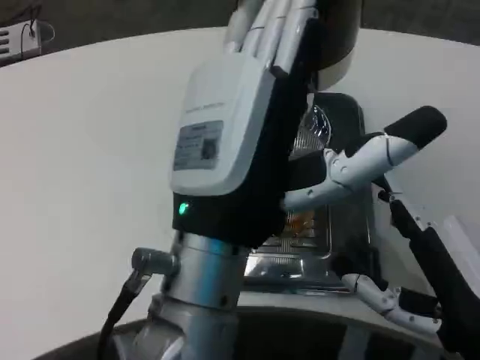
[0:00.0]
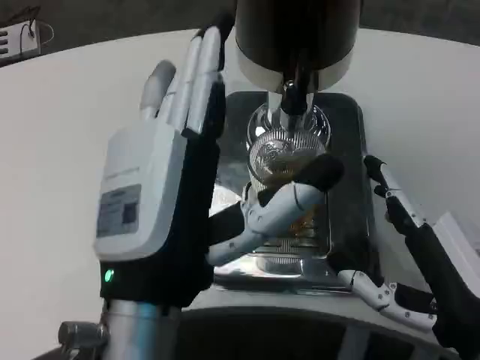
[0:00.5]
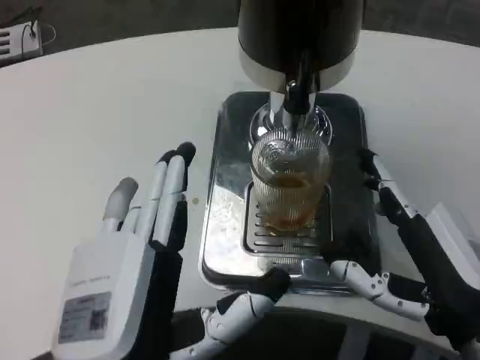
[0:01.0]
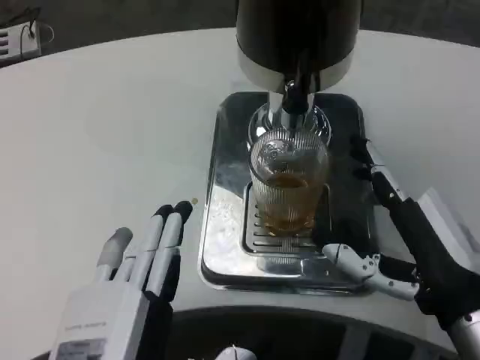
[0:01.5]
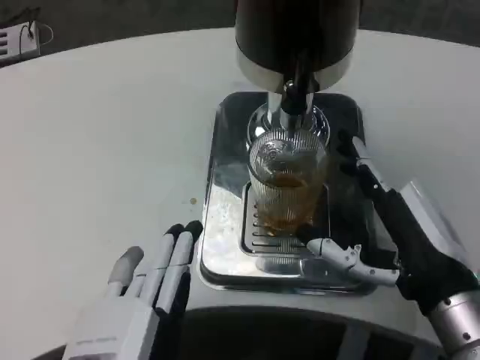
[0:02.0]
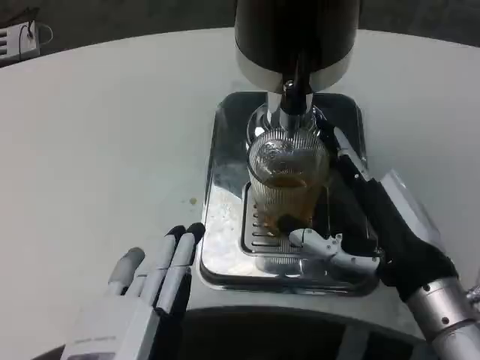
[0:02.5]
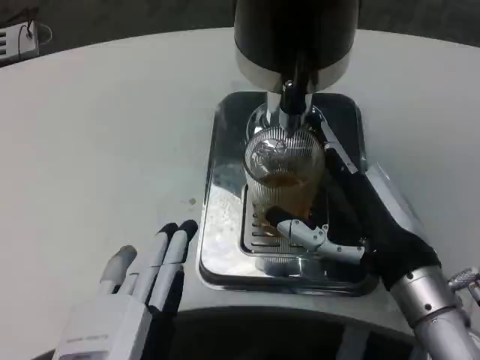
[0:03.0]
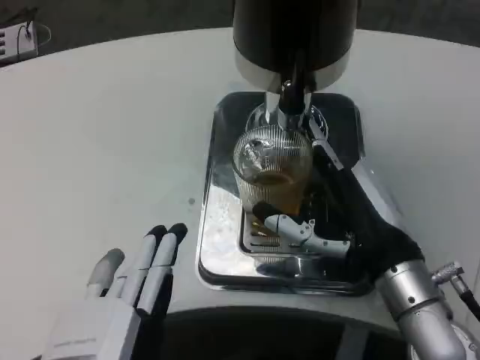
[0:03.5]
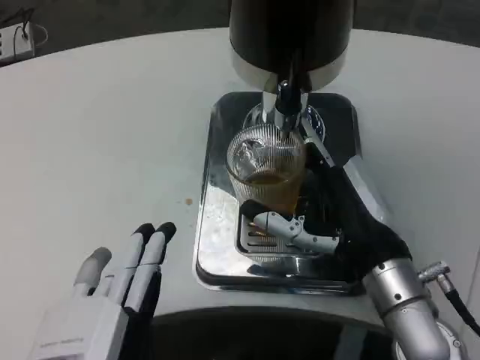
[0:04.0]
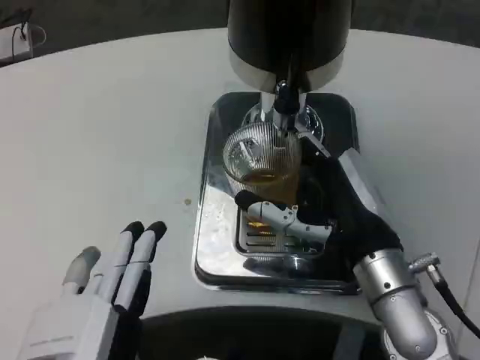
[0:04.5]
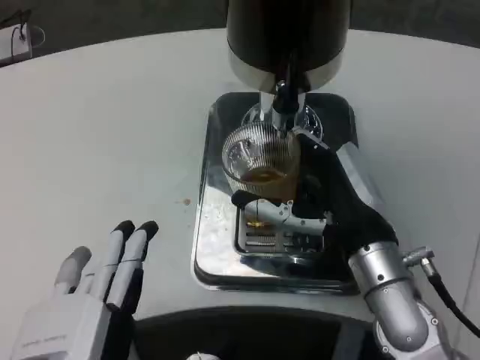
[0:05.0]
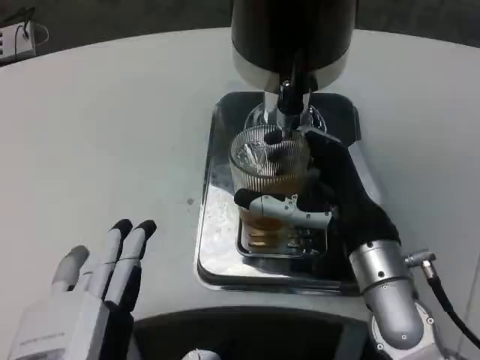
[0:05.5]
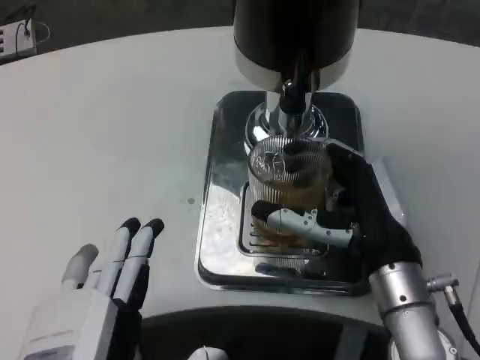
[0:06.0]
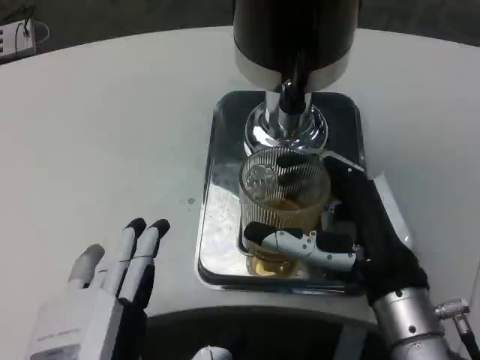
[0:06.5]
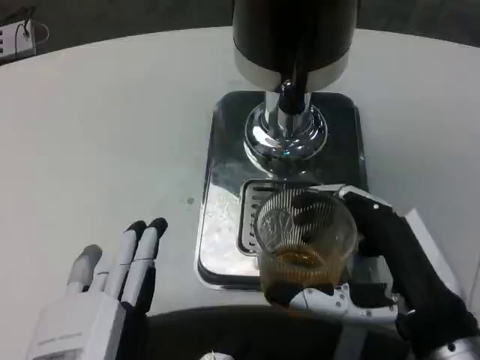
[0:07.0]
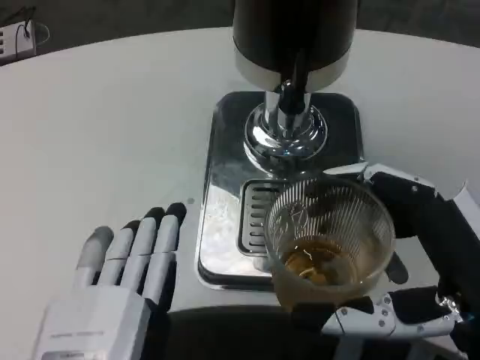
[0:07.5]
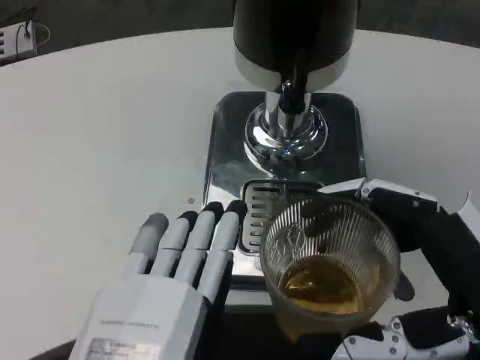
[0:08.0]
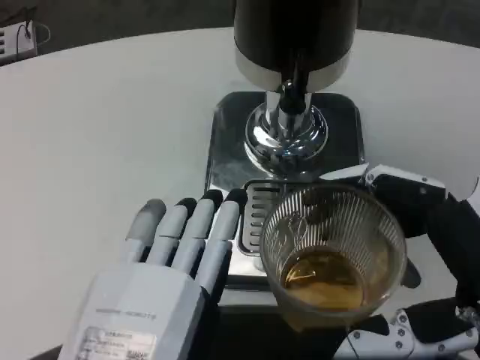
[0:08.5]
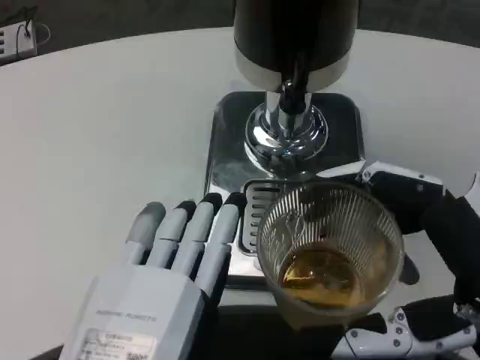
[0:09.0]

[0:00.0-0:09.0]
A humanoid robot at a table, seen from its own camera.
Task of the whole recording: Grasp the cup under the faucet to collect the drink, then remove the cup.
0:00.0 to 0:02.0: The left hand moves downward, backward and to the left, approximately 15 cm. The right hand travels forward by roughly 5 cm.
0:02.0 to 0:04.5: The right hand travels to the left by approximately 5 cm.
0:04.5 to 0:07.0: The right hand travels backward by some 10 cm.
0:07.0 to 0:09.0: The right hand is displaced upward and backward by approximately 5 cm.

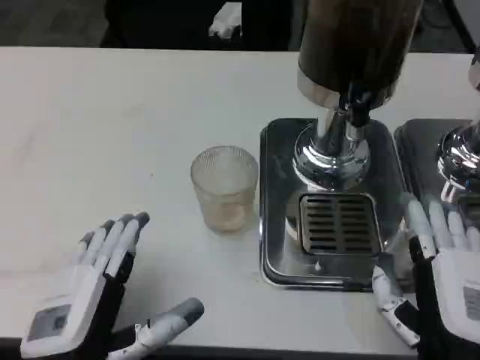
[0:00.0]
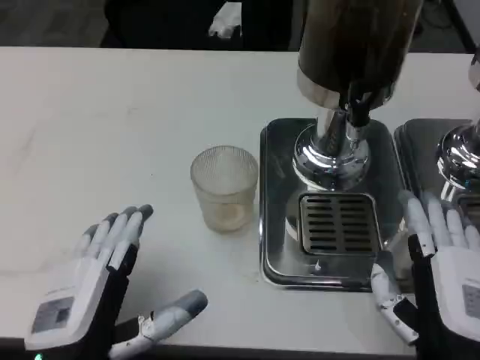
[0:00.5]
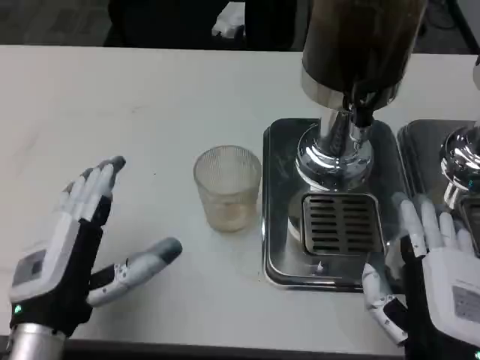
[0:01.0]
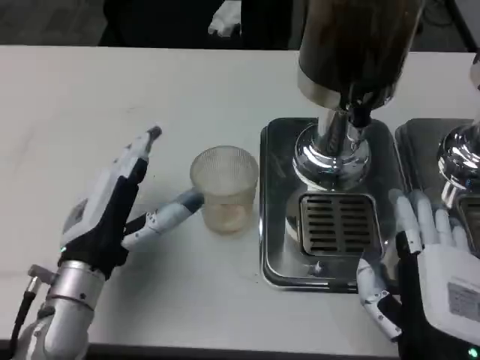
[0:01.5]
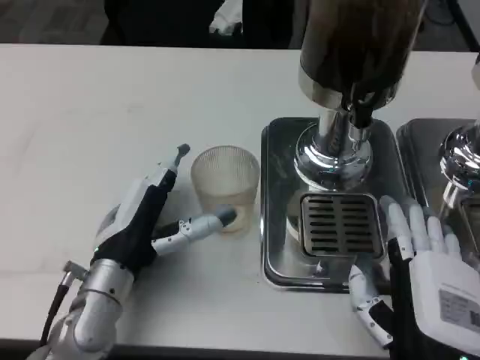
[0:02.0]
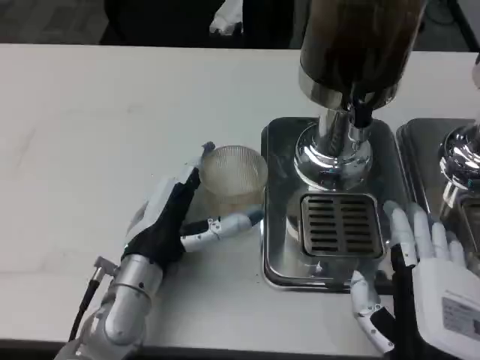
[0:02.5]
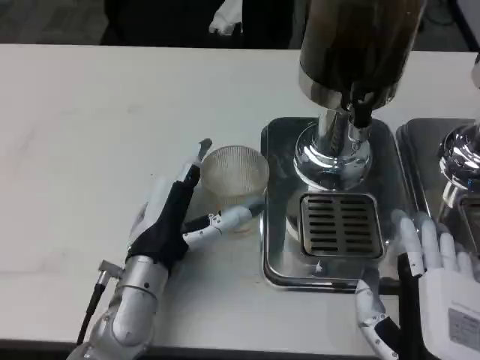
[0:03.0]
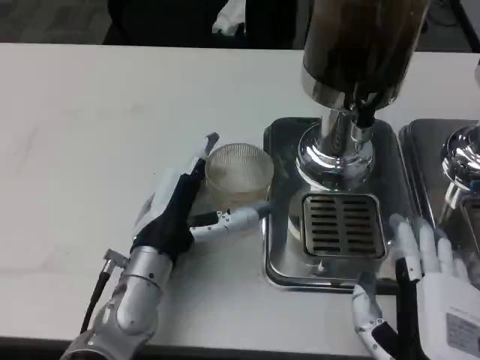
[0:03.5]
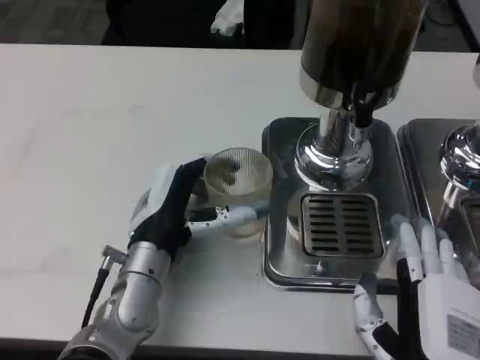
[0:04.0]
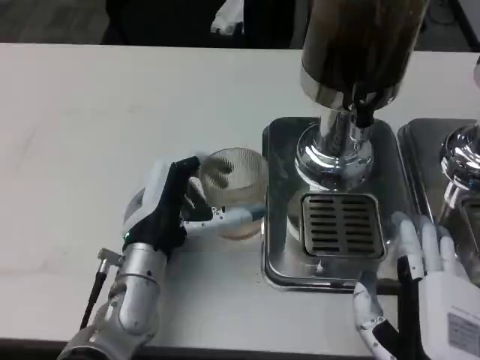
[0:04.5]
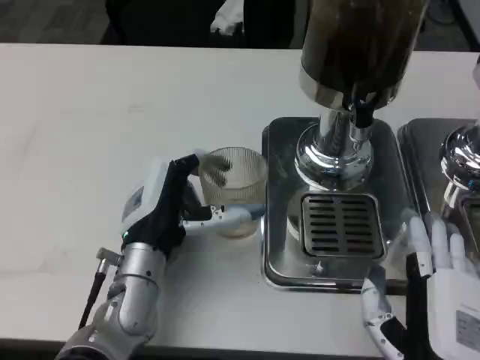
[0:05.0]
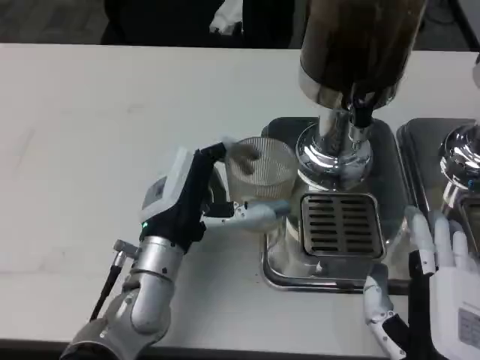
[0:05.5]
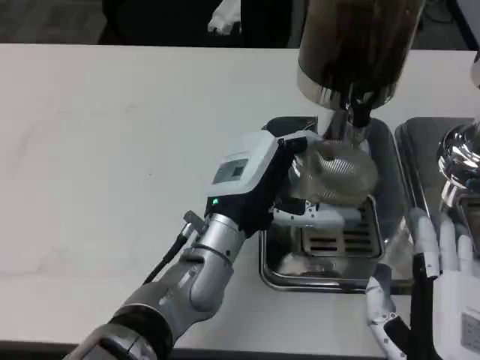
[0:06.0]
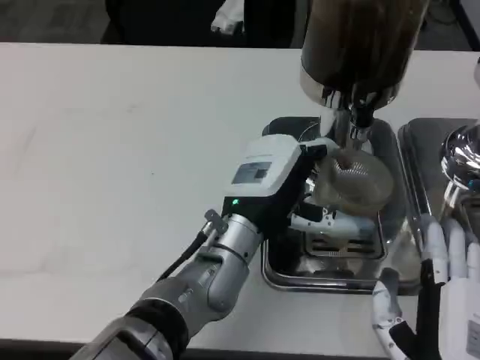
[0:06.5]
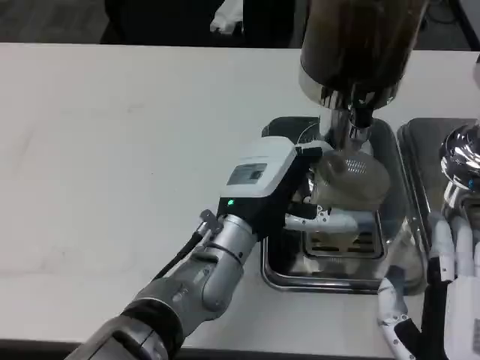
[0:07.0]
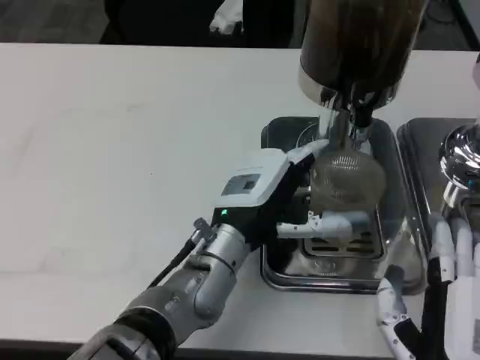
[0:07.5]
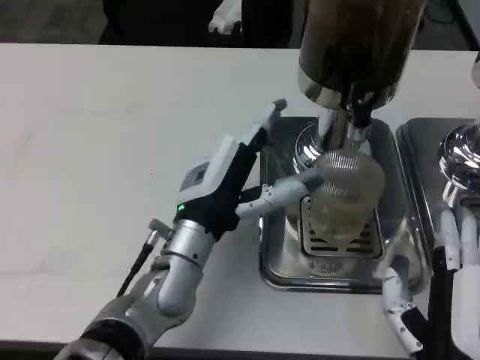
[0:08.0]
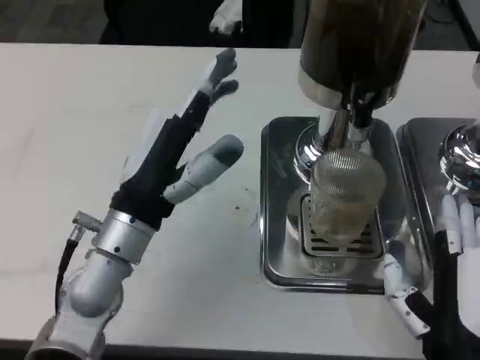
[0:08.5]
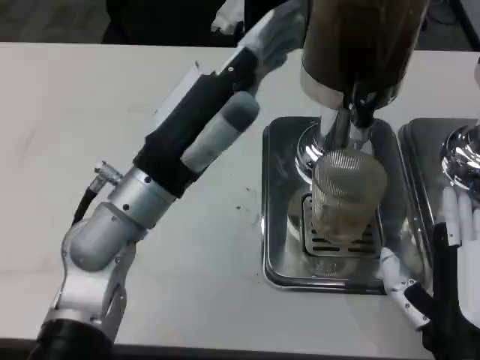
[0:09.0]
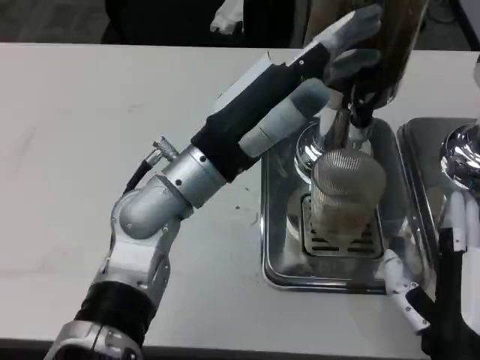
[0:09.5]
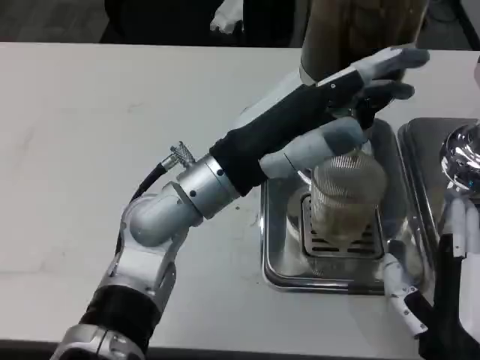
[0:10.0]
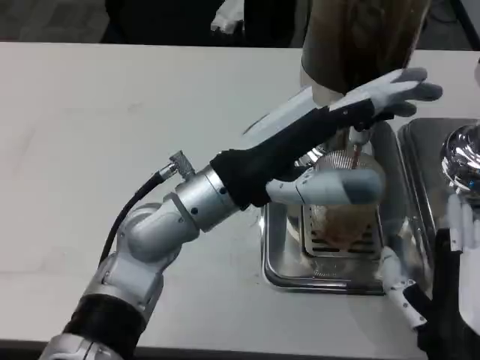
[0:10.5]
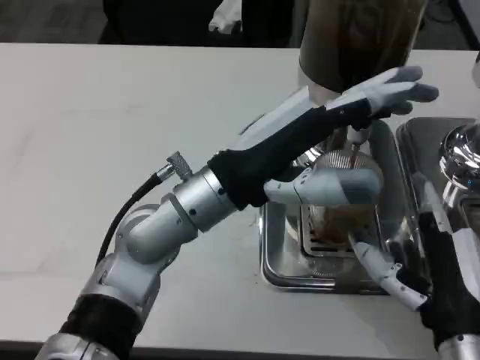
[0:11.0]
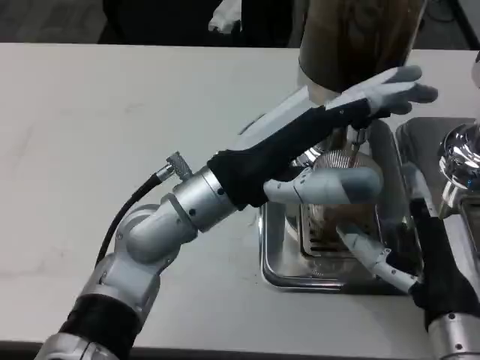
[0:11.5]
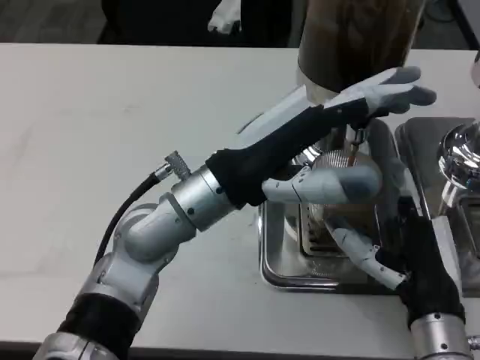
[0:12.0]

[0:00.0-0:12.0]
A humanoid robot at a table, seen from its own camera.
Task of the whole recording: Grasp the cup under the faucet to collect the drink, then remove the cup.
0:00.0 to 0:02.0: The left hand shifts some 15 cm forward.
0:04.0 to 0:06.0: The left hand heads to the right, covering approximately 5 cm.
0:08.0 to 0:10.0: The left hand heads upward, covering roughly 10 cm.
0:10.0 to 0:12.0: The right hand heads forward, covering approximately 5 cm.

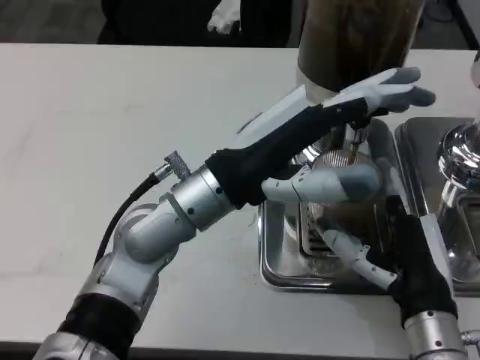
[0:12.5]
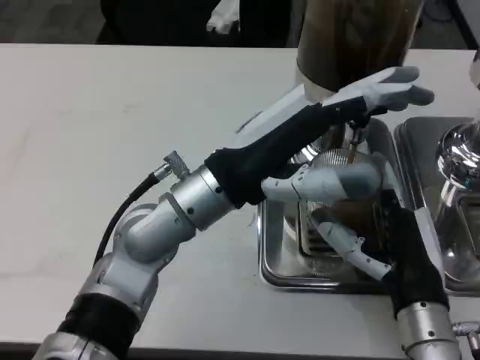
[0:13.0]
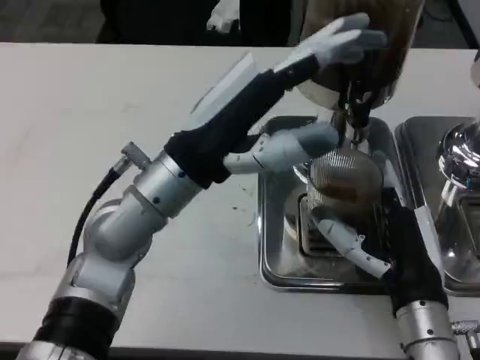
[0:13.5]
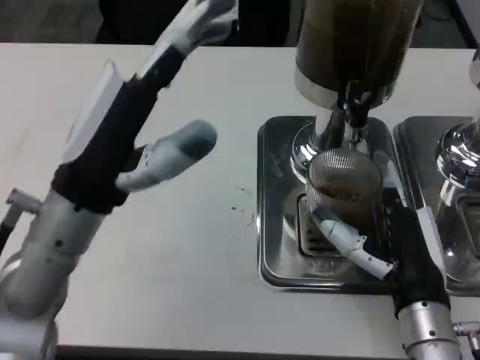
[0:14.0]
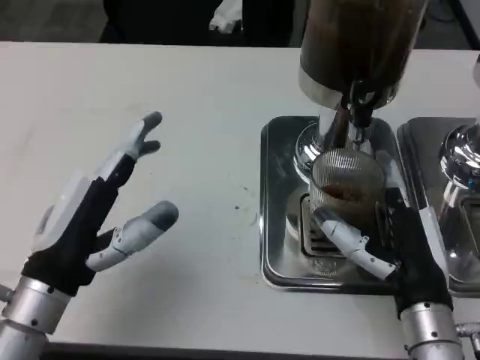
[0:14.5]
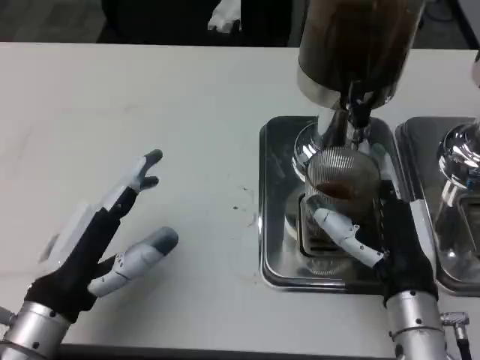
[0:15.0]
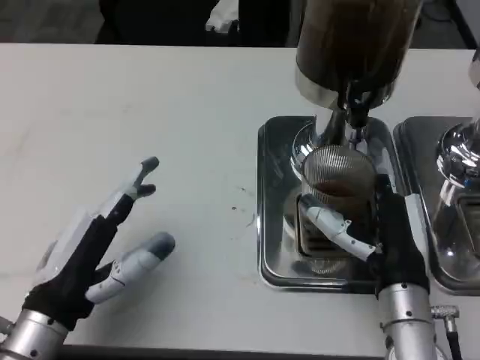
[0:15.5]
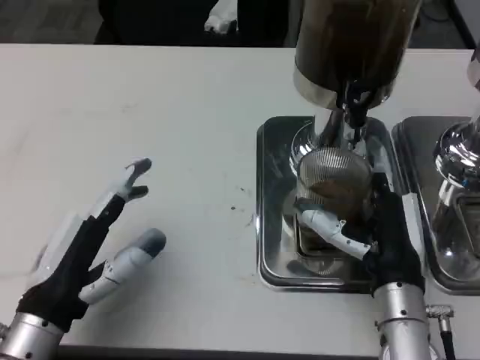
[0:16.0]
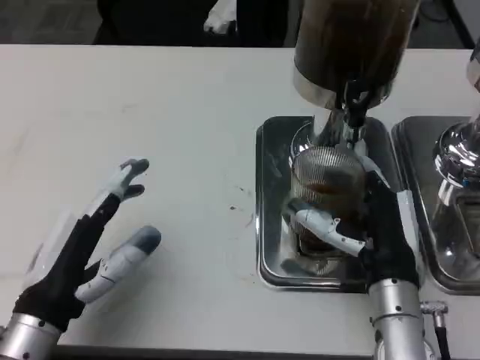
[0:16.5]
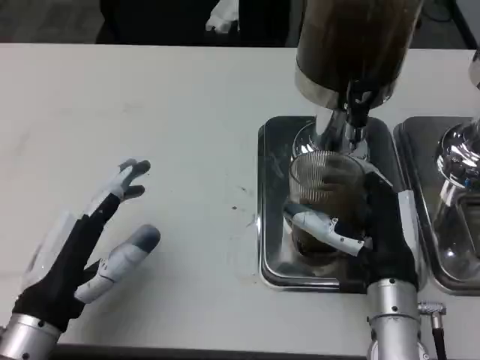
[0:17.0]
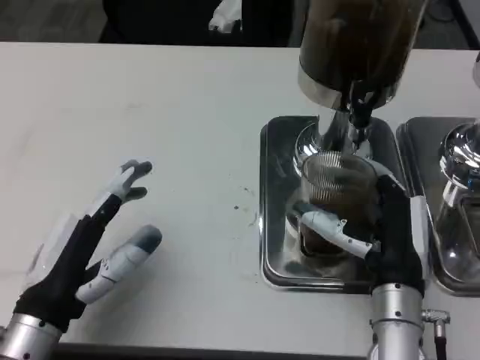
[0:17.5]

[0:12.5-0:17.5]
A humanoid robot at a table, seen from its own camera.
Task of the whole recording: Grasp the cup under the faucet to collect the drink, then remove the cup.
0:12.5 to 0:15.0: The left hand heads to the left, backward and downward, covering roughly 20 cm.
0:15.0 to 0:17.5: There are only small adjustments of the hands.
